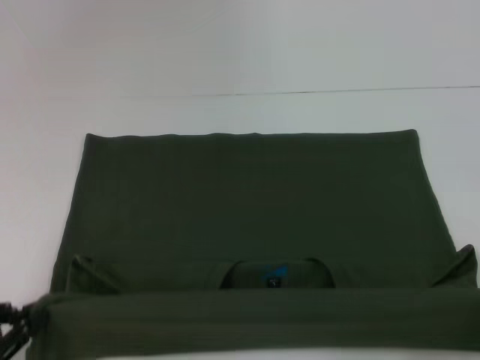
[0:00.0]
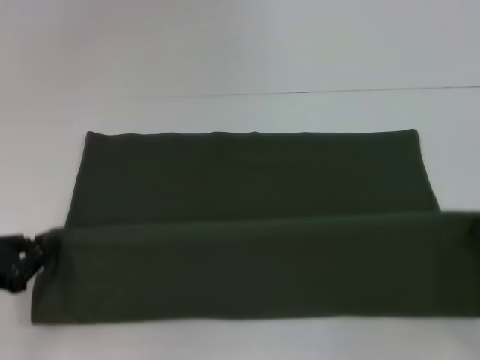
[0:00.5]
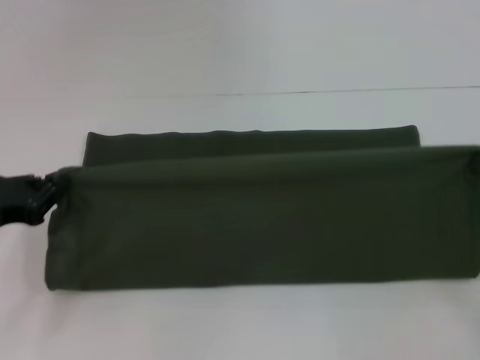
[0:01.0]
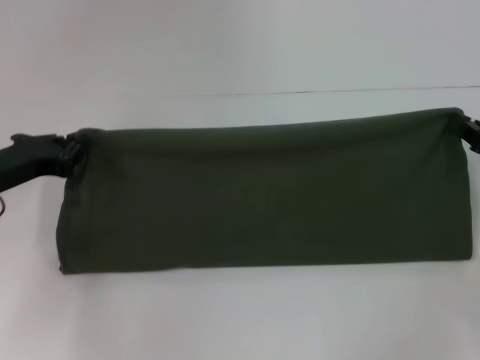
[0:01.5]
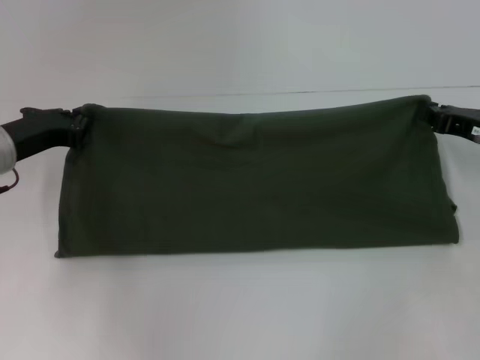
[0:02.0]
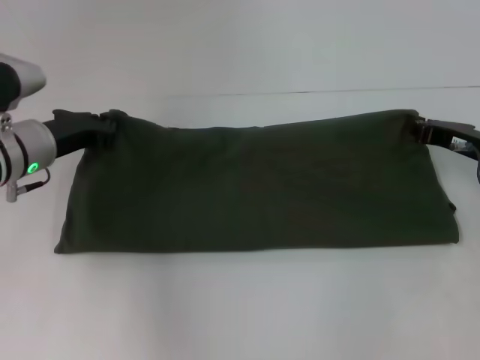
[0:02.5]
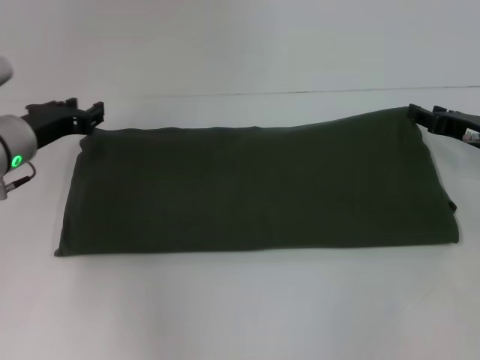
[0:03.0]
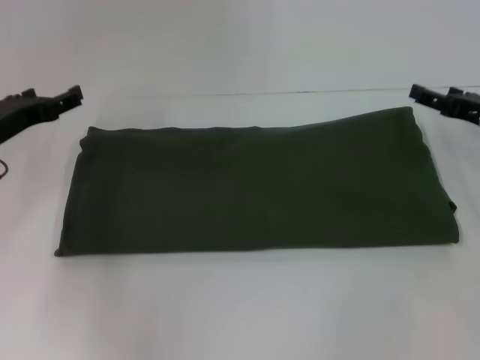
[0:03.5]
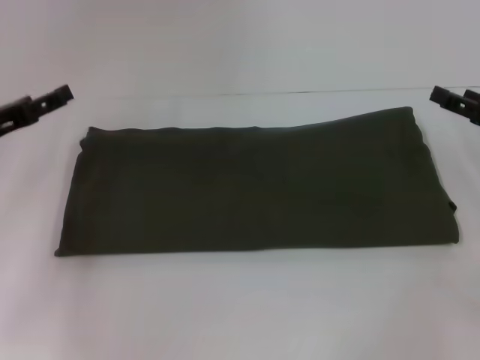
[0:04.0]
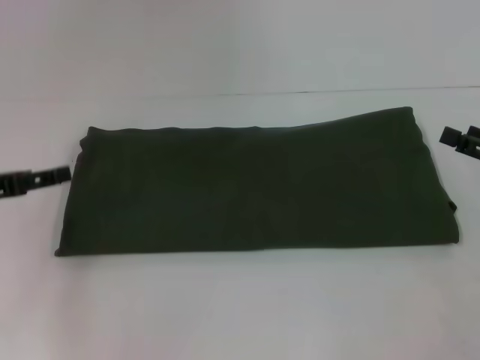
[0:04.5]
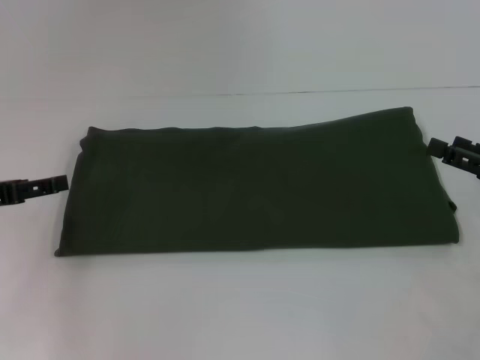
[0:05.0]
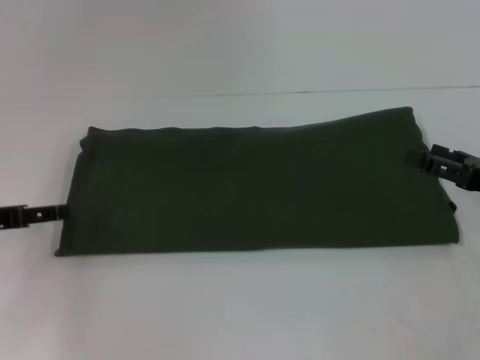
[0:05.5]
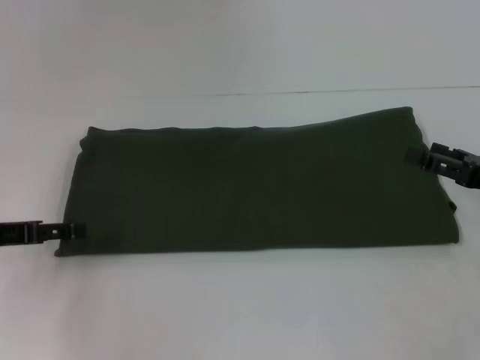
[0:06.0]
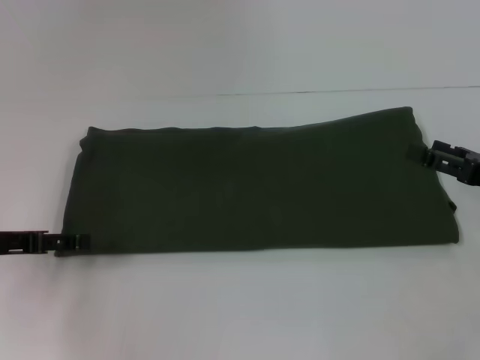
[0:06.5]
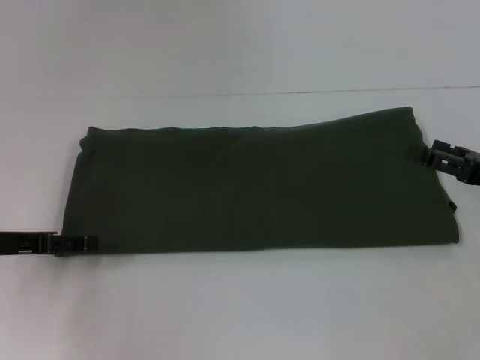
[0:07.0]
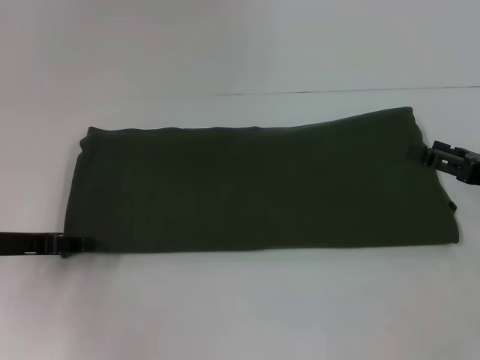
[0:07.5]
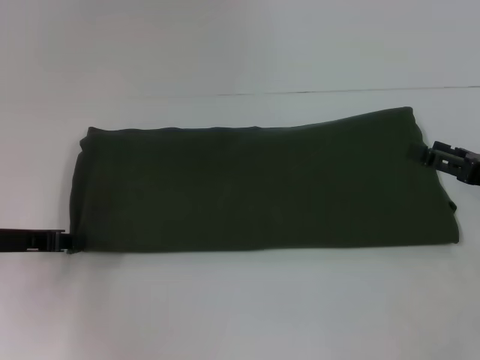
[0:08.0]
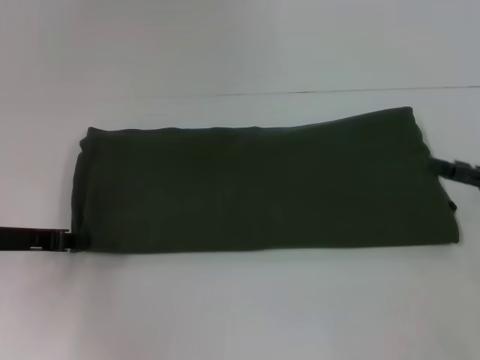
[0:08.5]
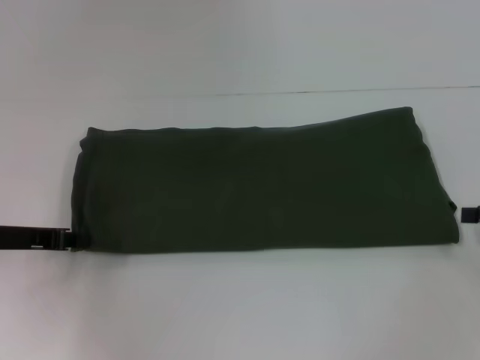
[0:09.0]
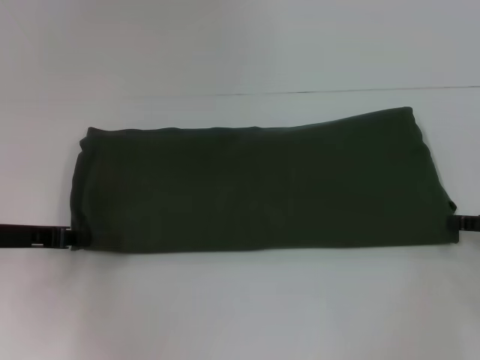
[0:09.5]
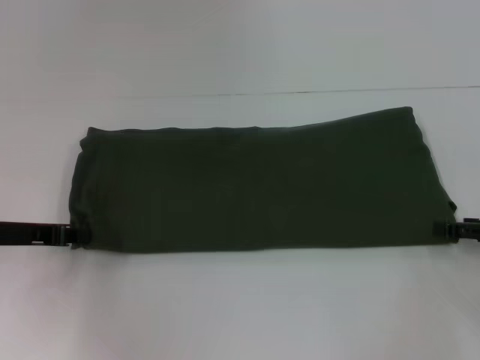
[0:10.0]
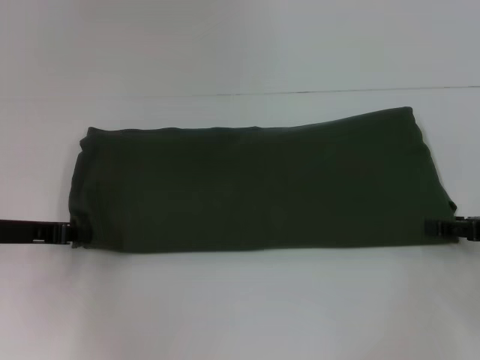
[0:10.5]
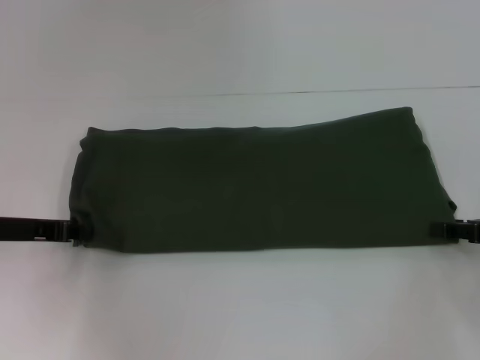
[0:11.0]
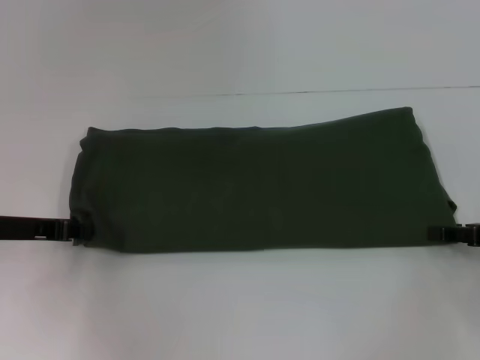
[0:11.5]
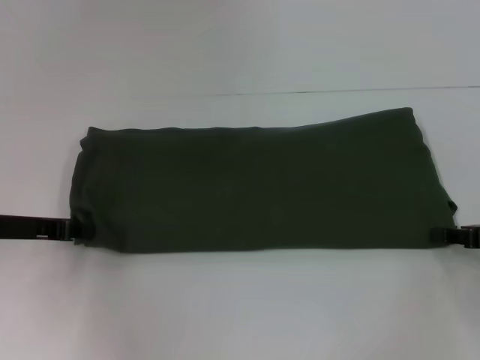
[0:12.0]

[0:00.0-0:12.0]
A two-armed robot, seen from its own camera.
Step, 0:00.0 to 0:02.5: Fold the clothes with your right hand.
0:00.0 to 0:02.0: Both grippers travel together forward, some 25 cm.
0:02.0 to 0:04.0: The left gripper moves about 5 cm, and opens up, while the right gripper opens its fingers.
0:04.0 to 0:06.0: The right gripper ends up approximately 5 cm from where it was.
0:06.0 to 0:08.0: The left gripper closes up.

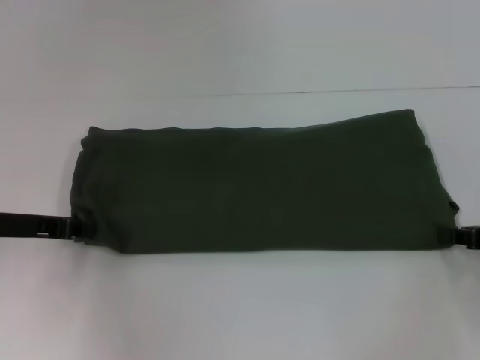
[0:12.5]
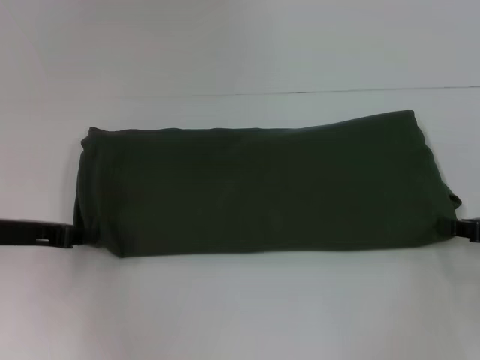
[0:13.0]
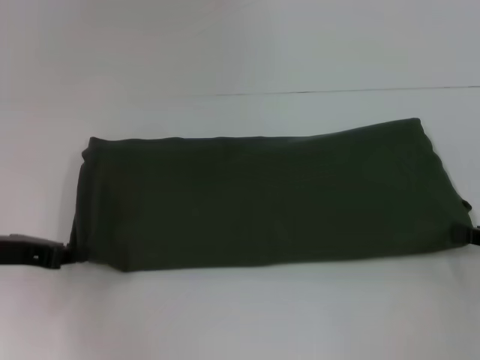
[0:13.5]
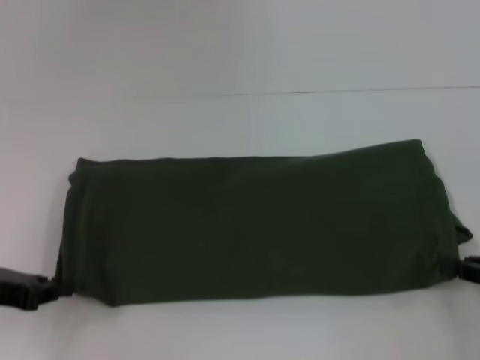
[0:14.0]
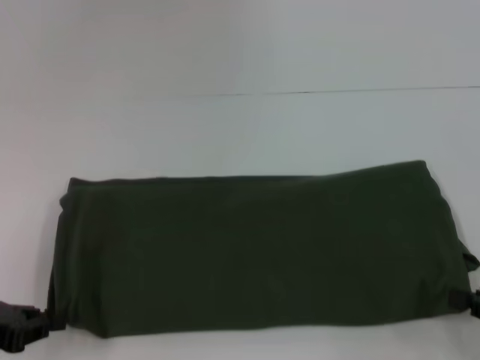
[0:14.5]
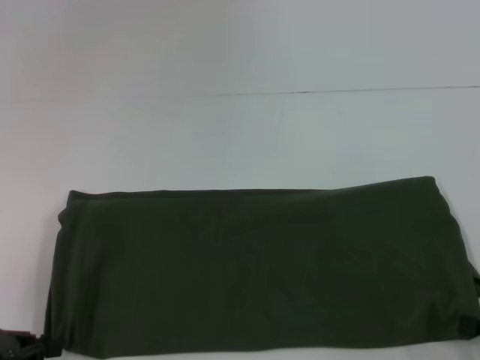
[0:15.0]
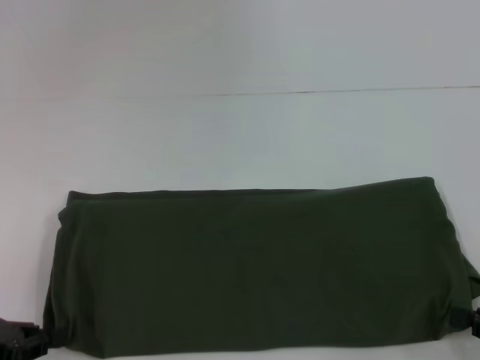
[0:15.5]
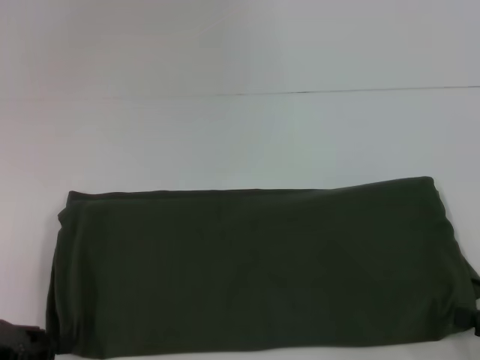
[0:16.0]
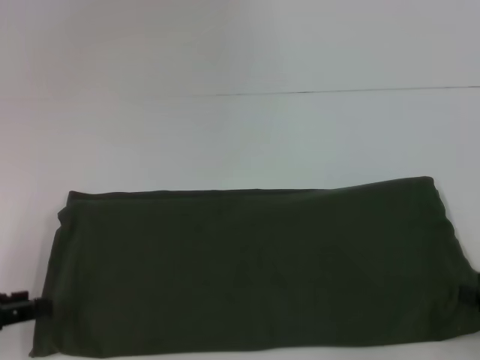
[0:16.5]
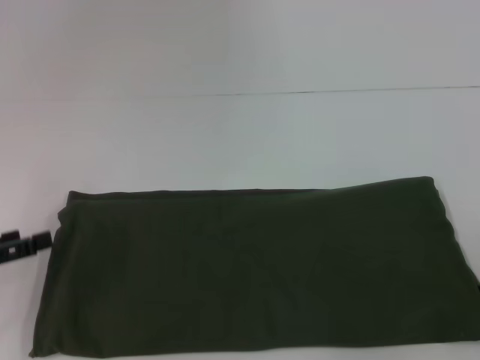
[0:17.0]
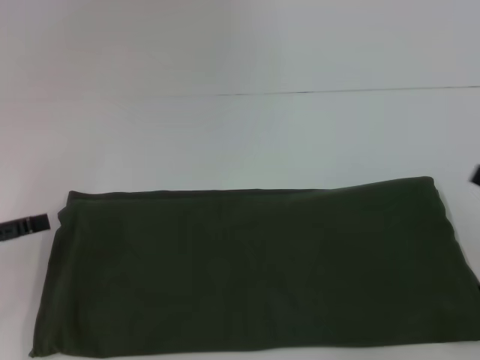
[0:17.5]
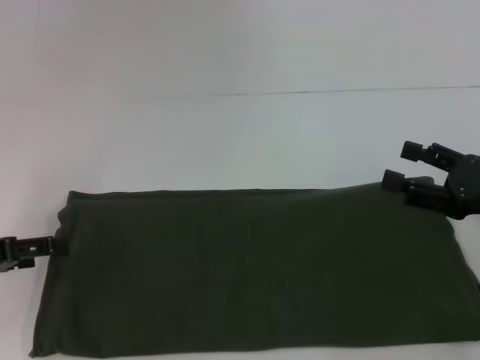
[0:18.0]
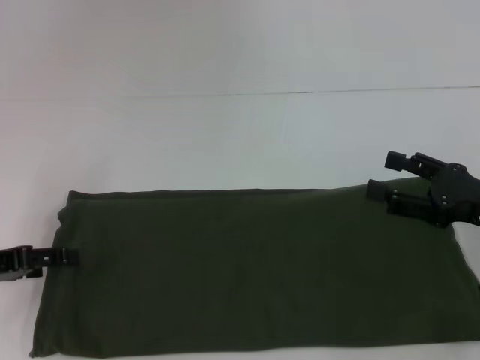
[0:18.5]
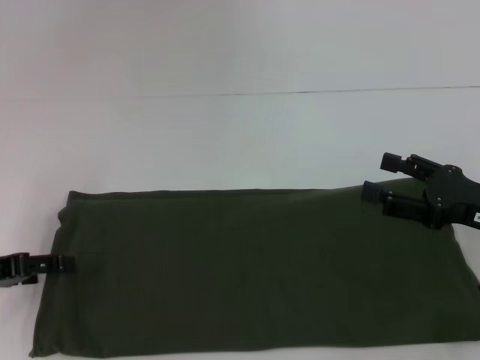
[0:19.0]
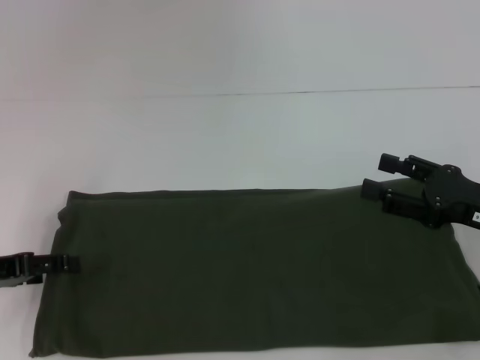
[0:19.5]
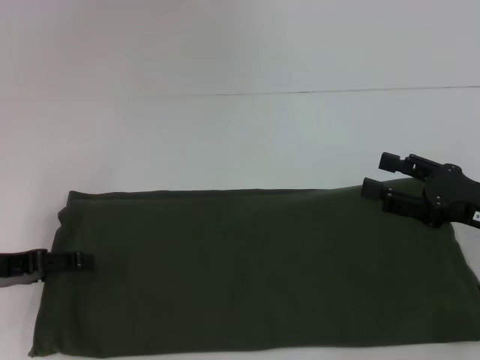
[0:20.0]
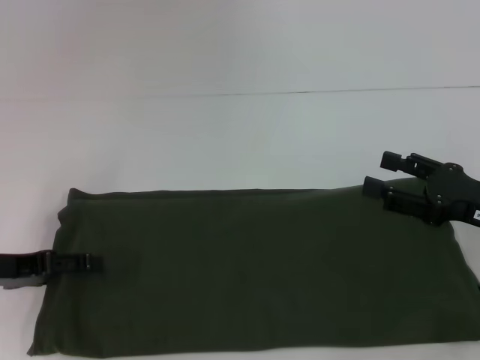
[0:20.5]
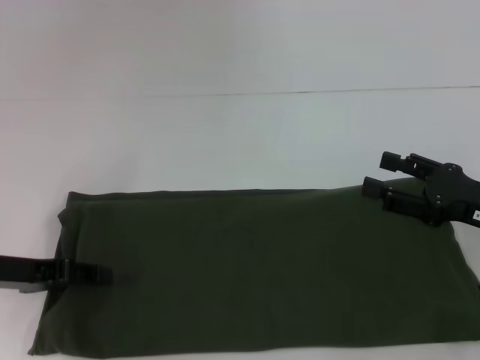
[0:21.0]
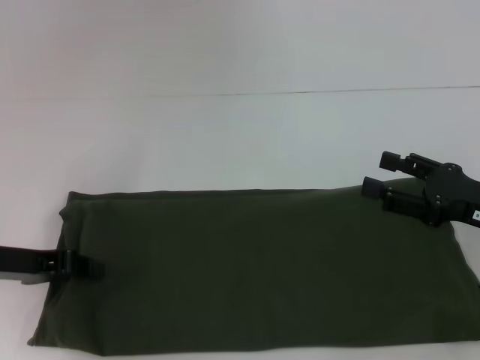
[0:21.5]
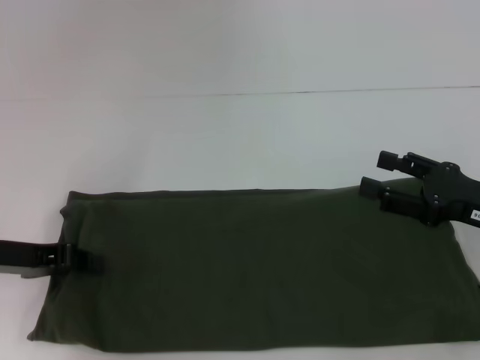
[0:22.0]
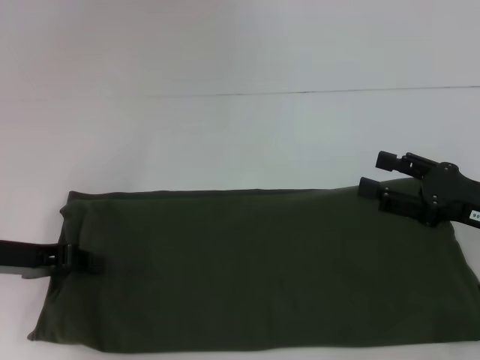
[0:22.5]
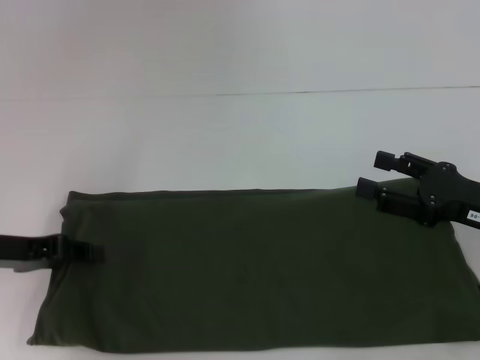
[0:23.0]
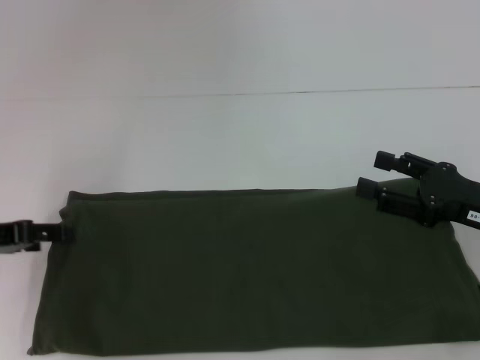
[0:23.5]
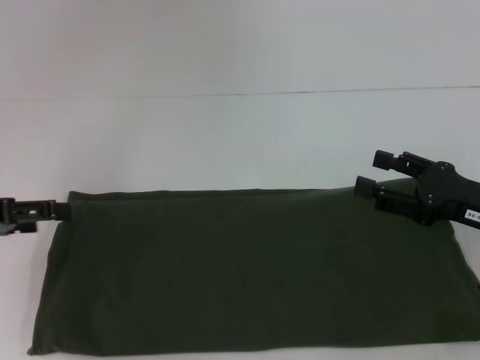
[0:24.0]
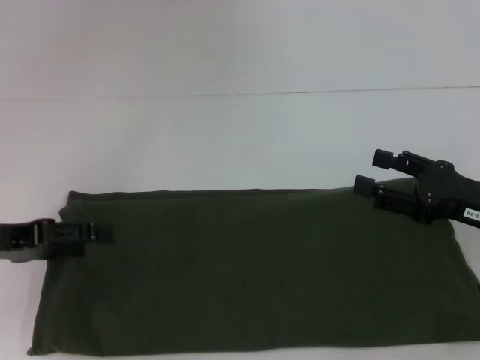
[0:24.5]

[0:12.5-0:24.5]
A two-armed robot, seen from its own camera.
0:12.5 to 0:14.5: Both grippers move backward, about 10 cm.
0:14.5 to 0:16.5: The right gripper opens its fingers; the left gripper opens up.
0:16.5 to 0:18.5: The left gripper travels forward by some 5 cm, and opens. The right gripper travels forward and to the left by approximately 10 cm, and opens its fingers.
0:18.5 to 0:20.5: There are only small adjustments of the grippers.
0:20.5 to 0:22.5: The left gripper closes up.
0:22.5 to 0:24.5: The left gripper opens.

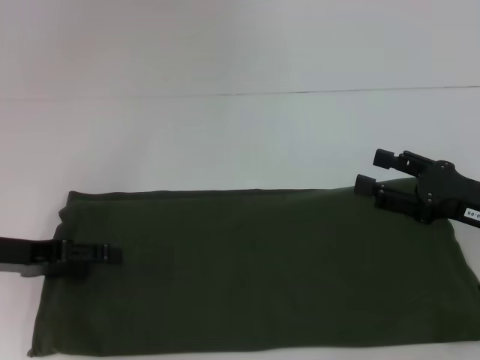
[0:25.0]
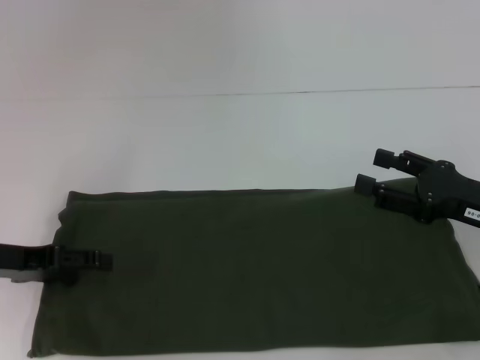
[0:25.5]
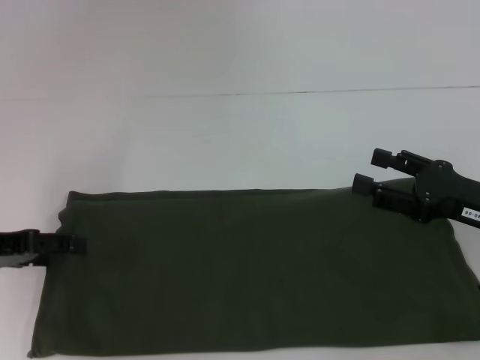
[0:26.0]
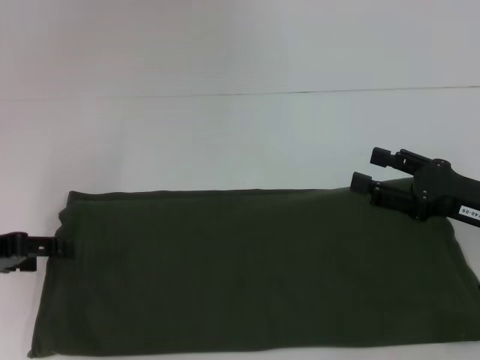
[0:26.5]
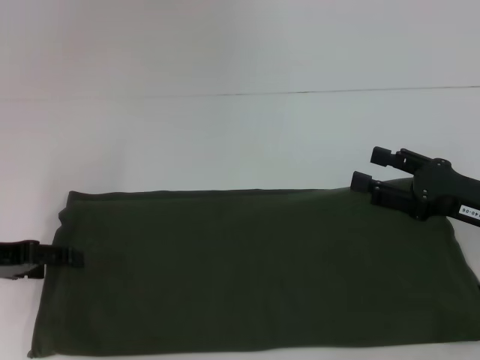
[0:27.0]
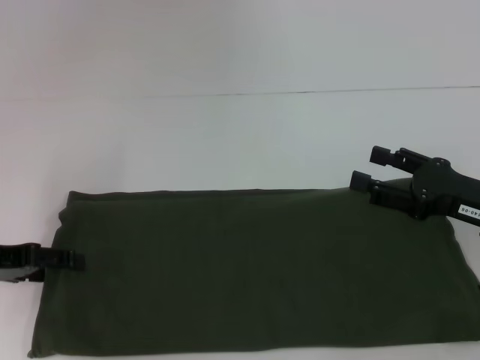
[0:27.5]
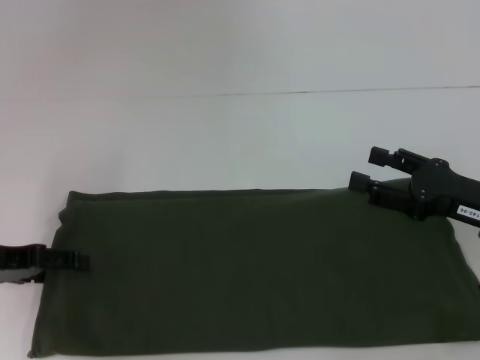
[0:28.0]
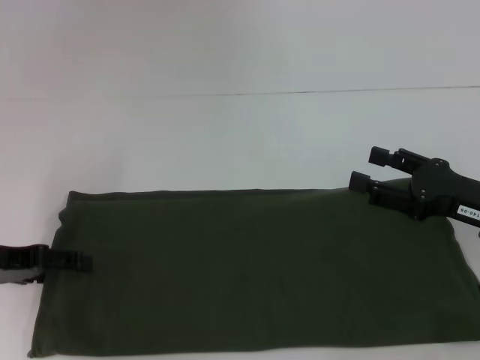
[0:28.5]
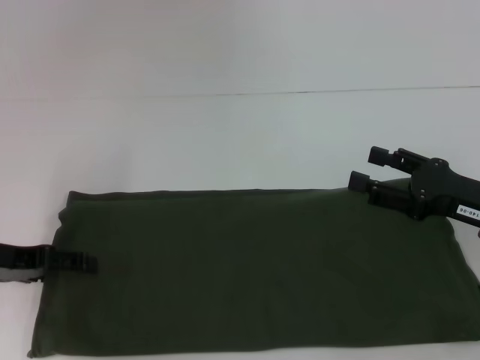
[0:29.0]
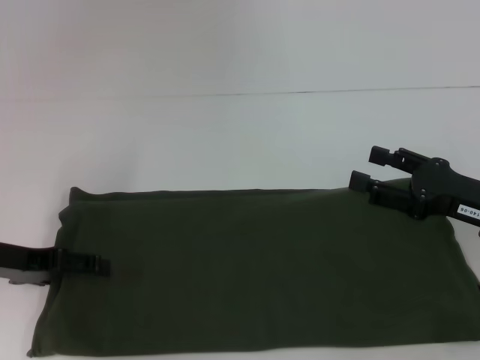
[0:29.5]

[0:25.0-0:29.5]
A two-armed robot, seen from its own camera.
0:25.0 to 0:29.5: The grippers stay close to where they were, moving slightly.
